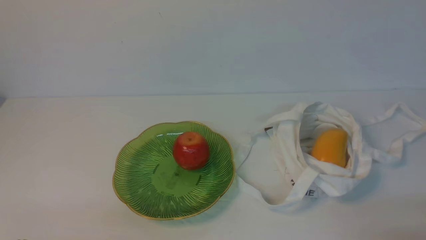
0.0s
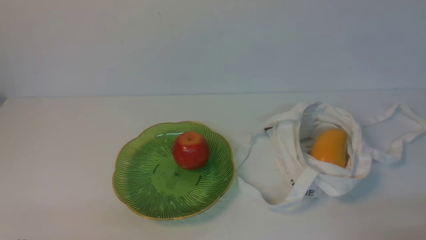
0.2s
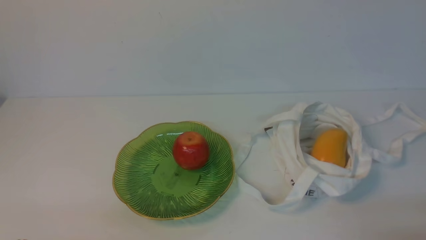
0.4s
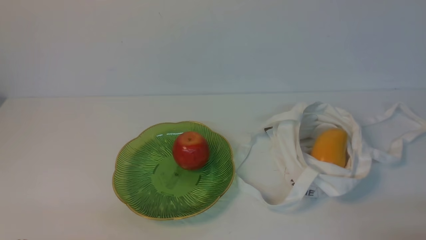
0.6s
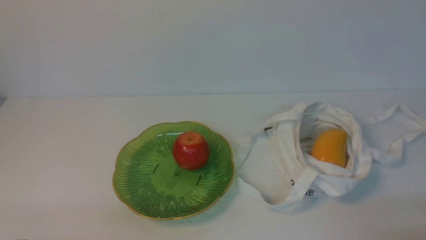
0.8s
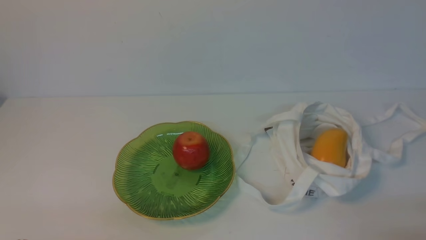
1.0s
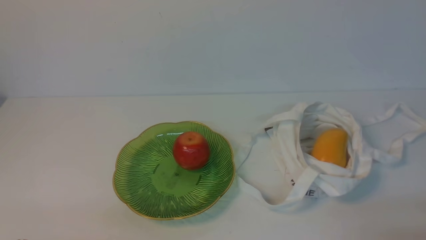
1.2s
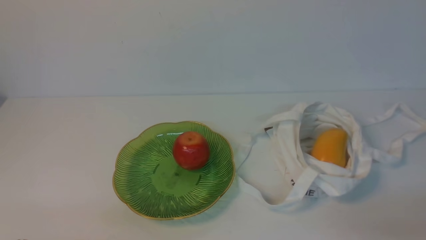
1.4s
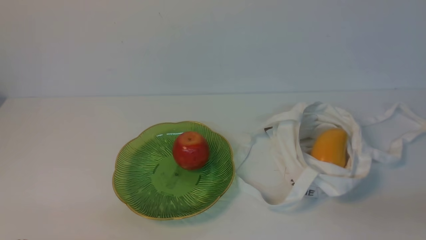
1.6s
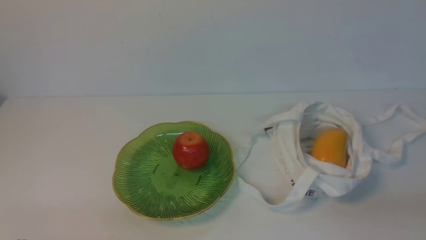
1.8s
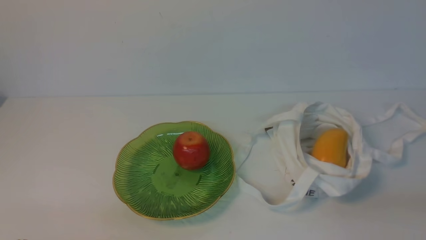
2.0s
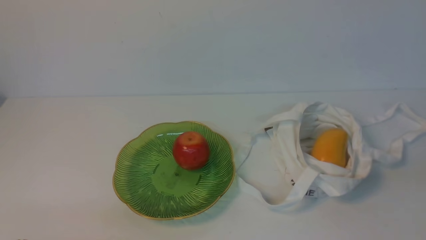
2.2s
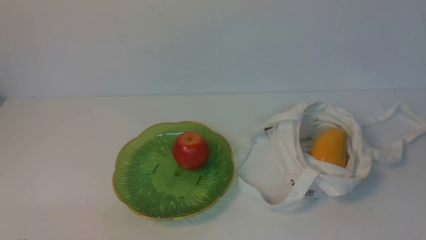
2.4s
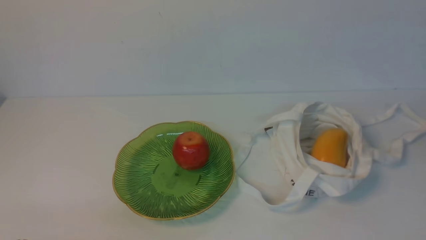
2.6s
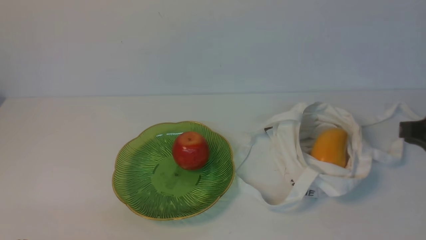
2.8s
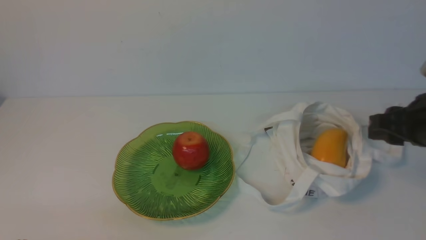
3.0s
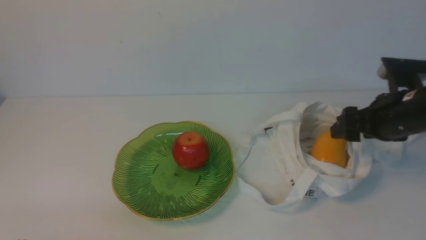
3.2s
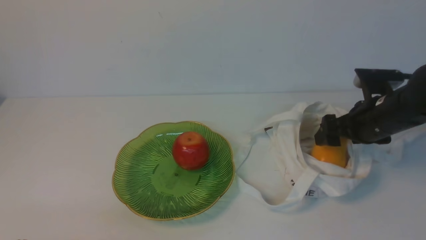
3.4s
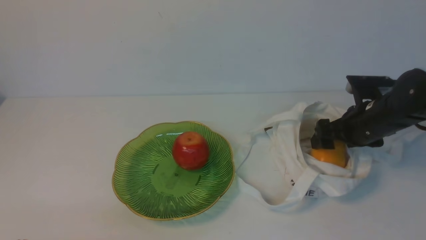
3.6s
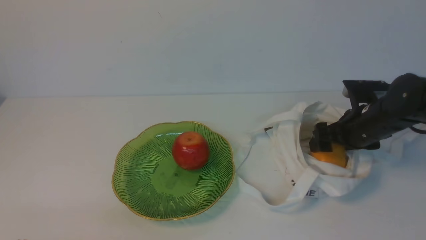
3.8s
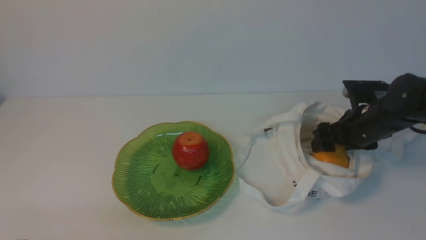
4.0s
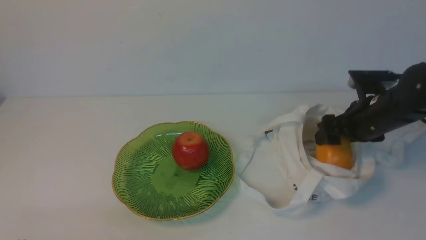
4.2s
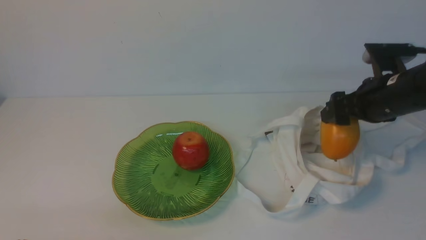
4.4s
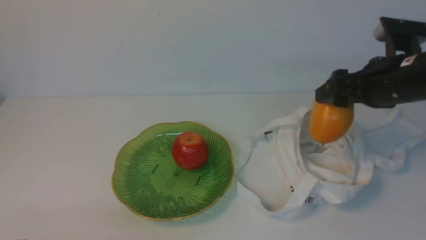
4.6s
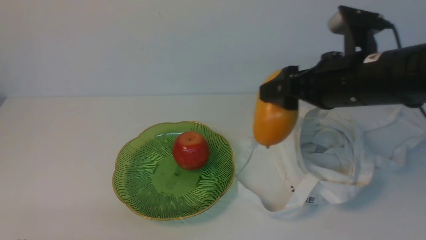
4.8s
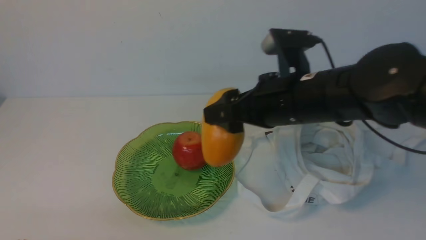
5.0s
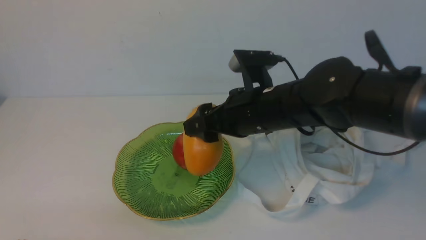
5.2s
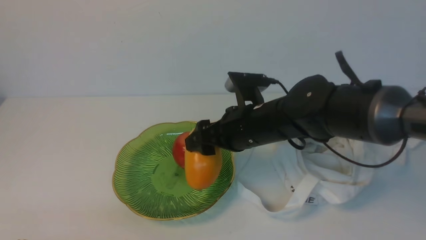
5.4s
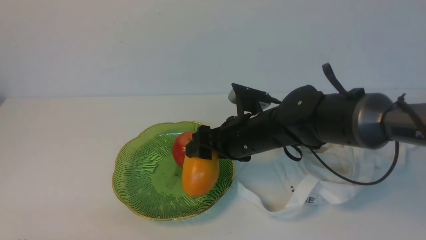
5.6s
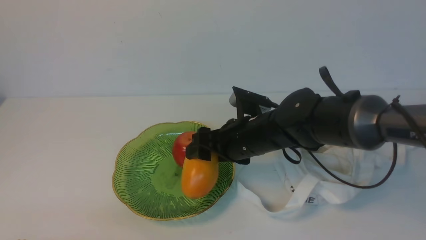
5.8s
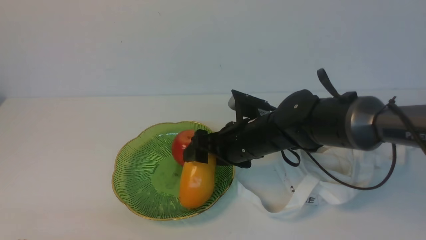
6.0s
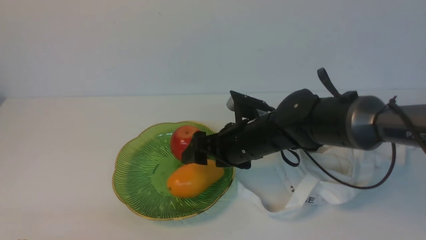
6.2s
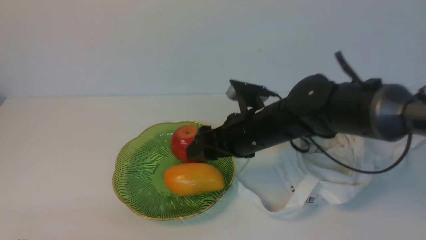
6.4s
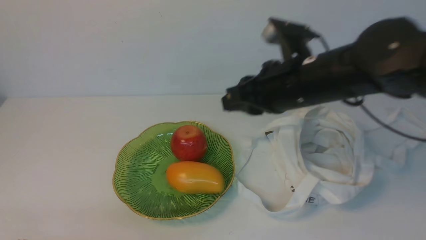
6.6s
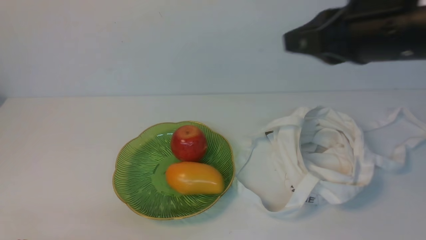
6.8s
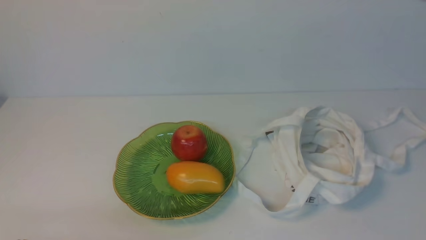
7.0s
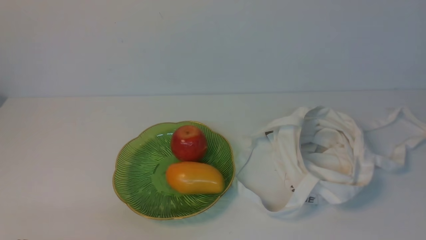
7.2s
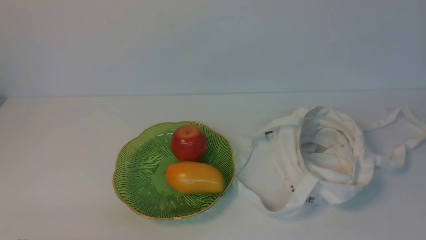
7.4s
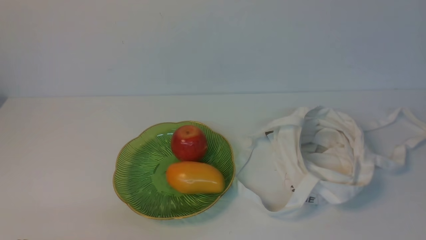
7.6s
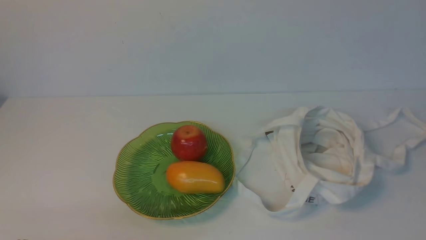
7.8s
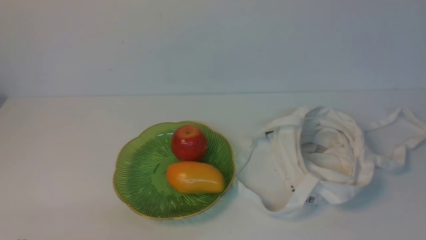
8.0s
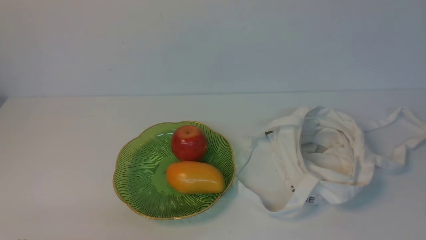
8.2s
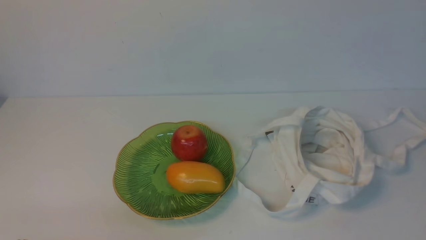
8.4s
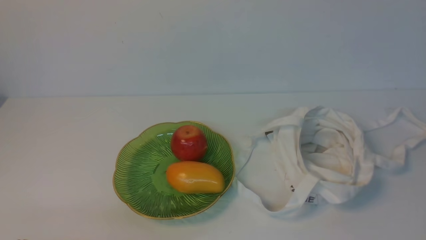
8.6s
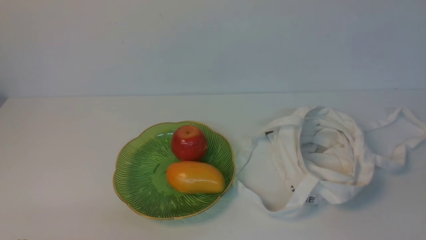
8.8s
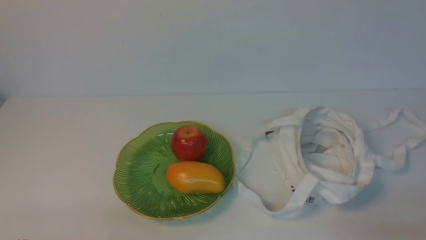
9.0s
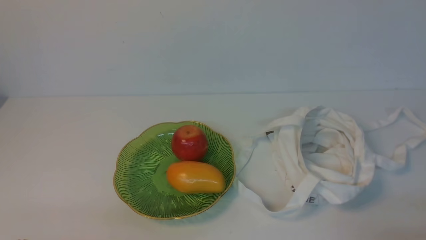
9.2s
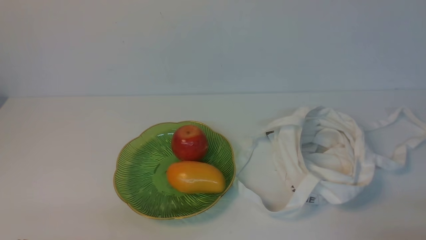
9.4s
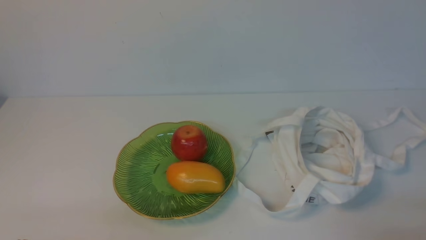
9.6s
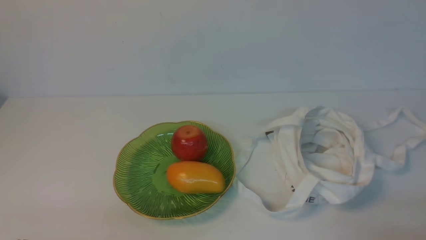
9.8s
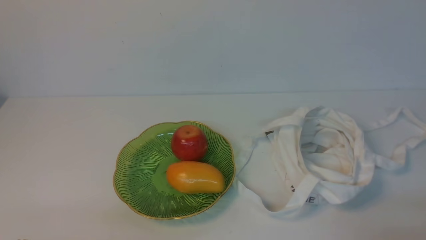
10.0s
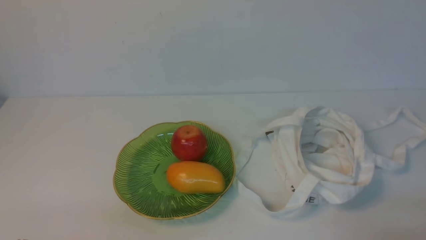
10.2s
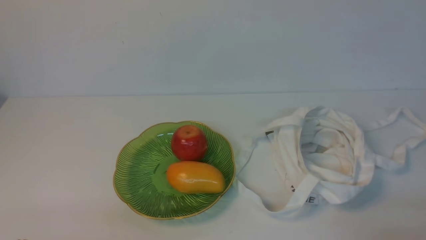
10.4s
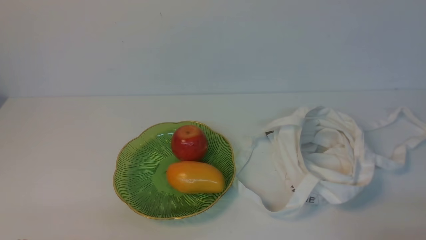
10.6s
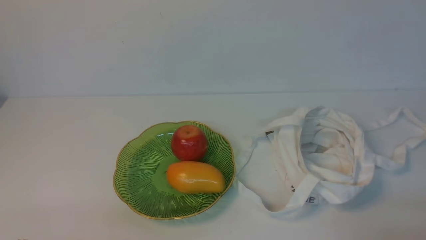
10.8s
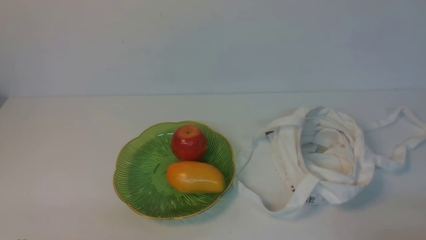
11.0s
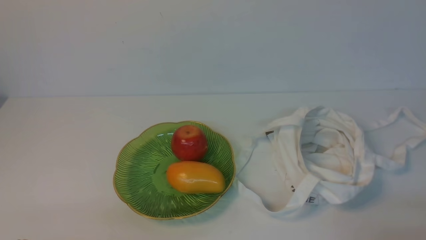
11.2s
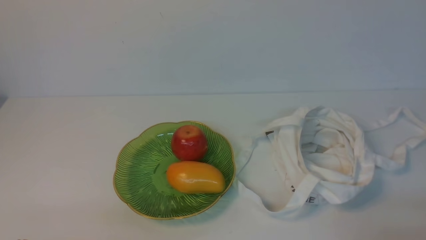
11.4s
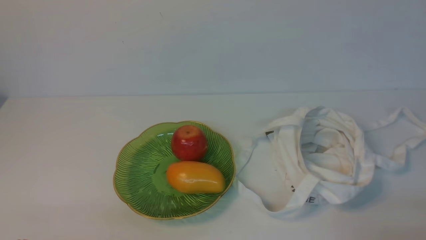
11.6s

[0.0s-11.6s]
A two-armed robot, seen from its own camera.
Step, 0.0s to 4.2s: use the right arm to grab a mango from the bag.
Step, 4.4s to 6.2s: use the right arm to put the mango into the empty plate on the left.
1.4s to 2.8s: The right gripper moves forward and upward, about 20 cm.
2.8s to 4.4s: The right gripper shifts approximately 10 cm forward and to the left, and opens its fingers.
4.4s to 5.8s: The right gripper shifts roughly 20 cm to the left.
5.8s to 7.2s: The right gripper is displaced upward, backward and to the right by about 40 cm, and closes.
10.2s to 11.6s: Both grippers stay put.
